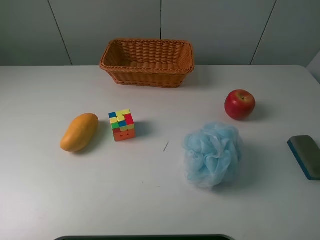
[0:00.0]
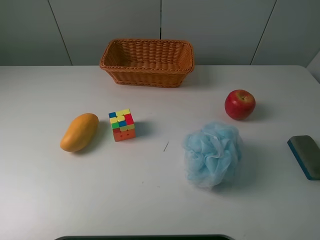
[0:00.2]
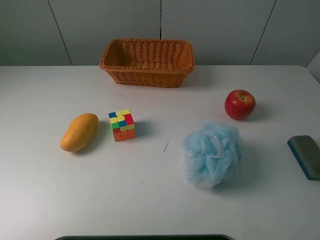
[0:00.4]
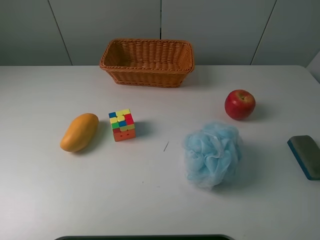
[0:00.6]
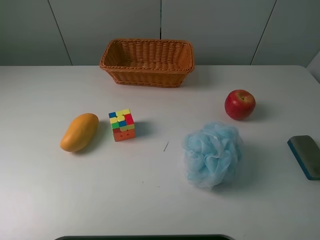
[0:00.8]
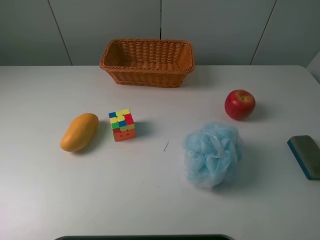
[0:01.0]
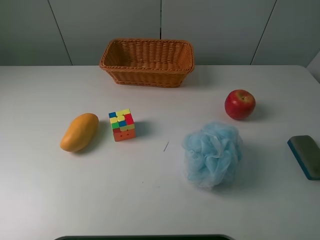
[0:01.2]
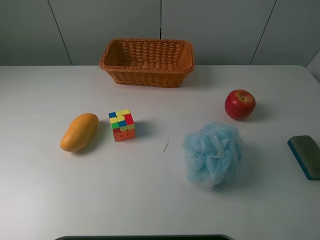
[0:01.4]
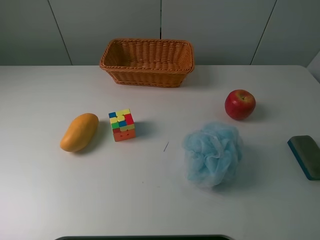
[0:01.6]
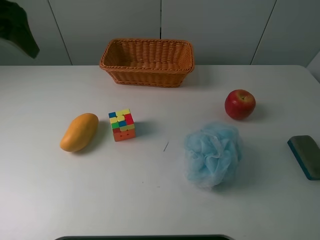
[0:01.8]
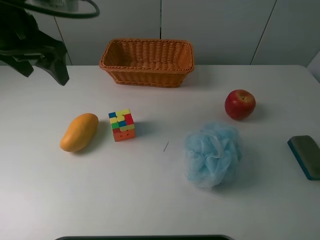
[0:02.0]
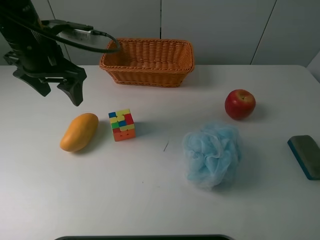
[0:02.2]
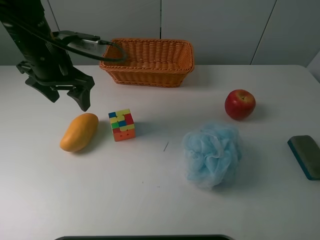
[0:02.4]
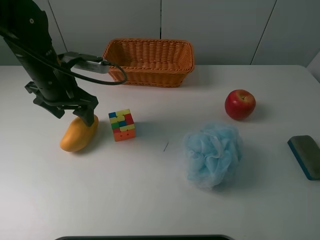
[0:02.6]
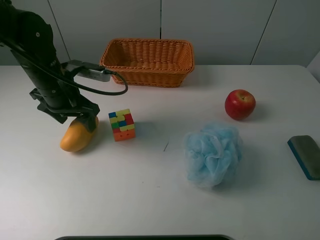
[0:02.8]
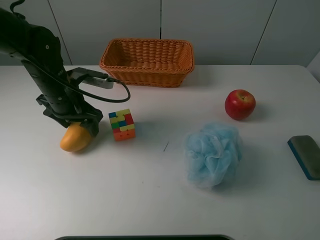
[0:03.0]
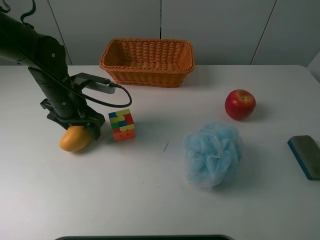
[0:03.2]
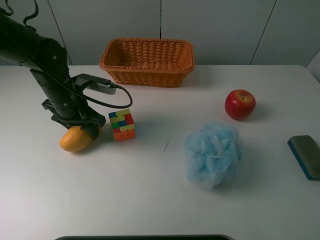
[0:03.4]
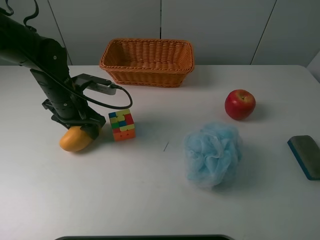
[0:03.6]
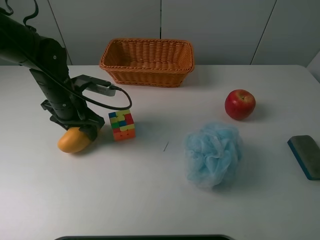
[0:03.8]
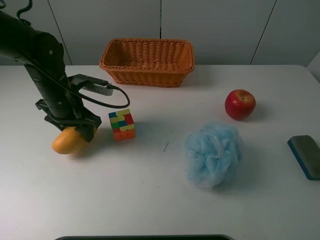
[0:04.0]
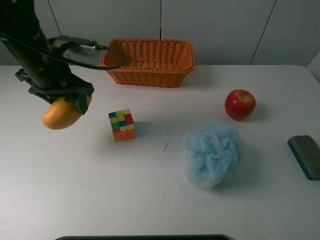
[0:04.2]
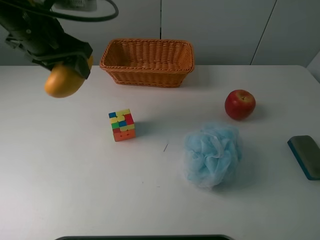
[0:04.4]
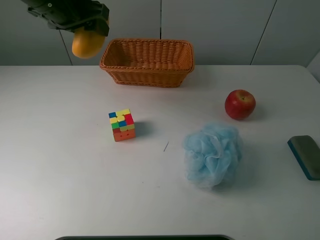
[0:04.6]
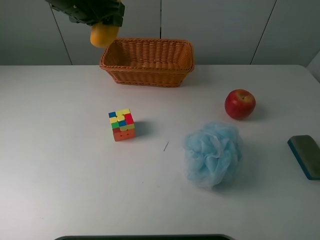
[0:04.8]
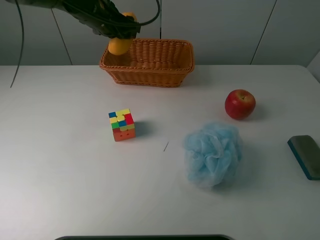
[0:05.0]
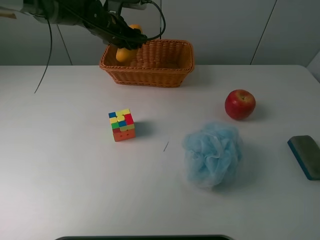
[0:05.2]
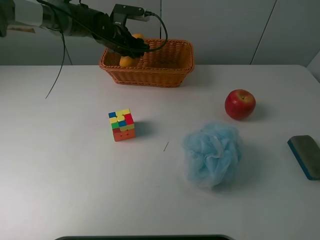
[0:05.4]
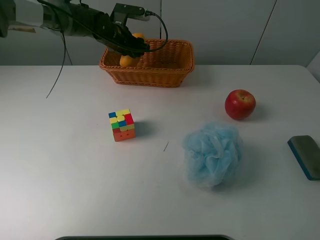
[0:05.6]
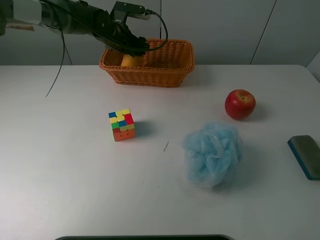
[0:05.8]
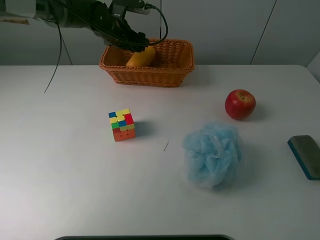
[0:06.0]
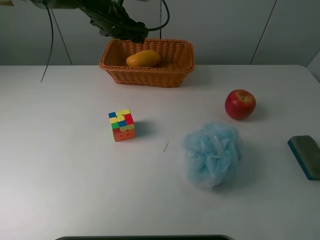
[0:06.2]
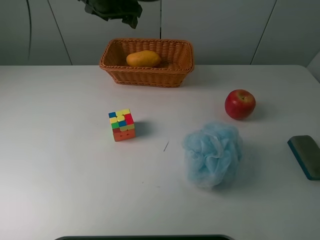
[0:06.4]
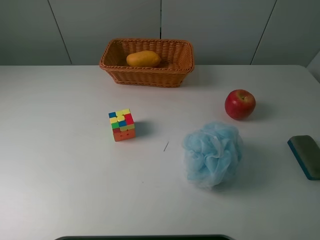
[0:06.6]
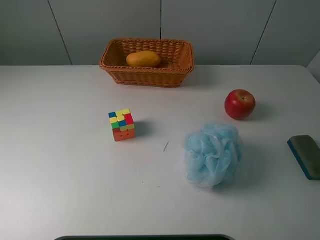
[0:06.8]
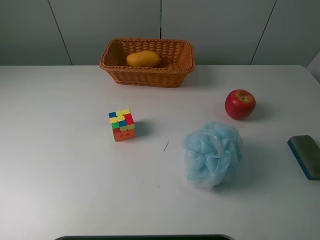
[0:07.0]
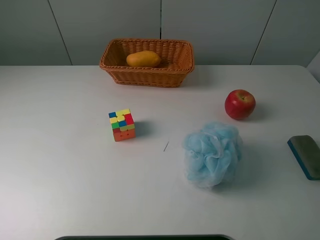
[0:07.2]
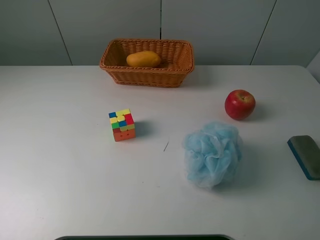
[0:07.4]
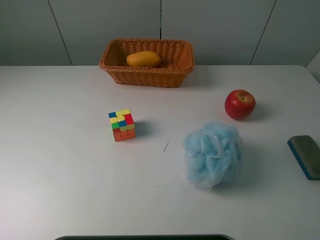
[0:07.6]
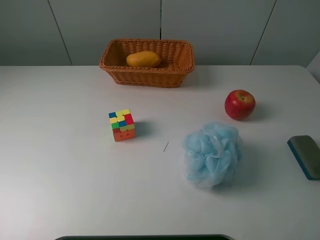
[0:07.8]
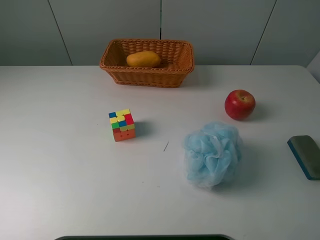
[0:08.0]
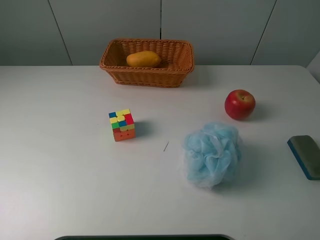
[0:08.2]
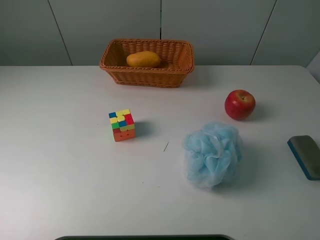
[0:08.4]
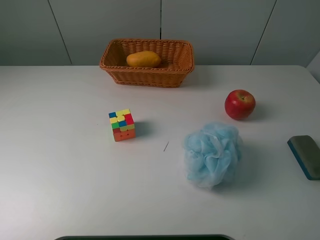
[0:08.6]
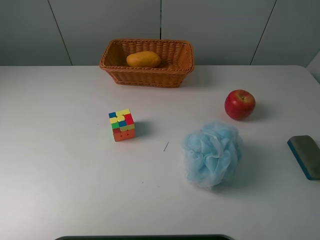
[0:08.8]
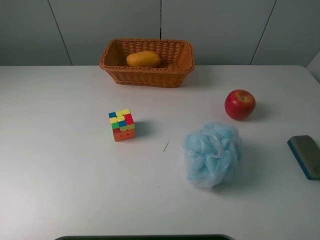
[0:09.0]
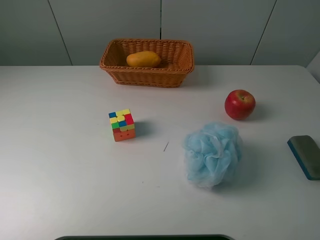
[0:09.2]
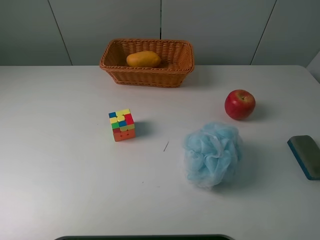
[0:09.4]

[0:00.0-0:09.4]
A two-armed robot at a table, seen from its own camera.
Task of the whole recording: use a picker to grab the item closest to the cube and place it in the basket.
Step, 0:00.0 to 0:03.4: Grasp the mango with the left gripper.
Step, 0:03.6 to 0:06.0: Place the mango into the basket with the left gripper.
0:01.6 to 0:03.2: The left gripper shifts roughly 30 cm downward and to the right.
0:03.2 to 0:04.8: The left gripper shifts approximately 20 cm upward and forward, and closes its fingers.
0:04.8 to 0:06.2: The left gripper moves forward, some 5 cm, and opens.
0:06.2 to 0:07.8: The left gripper moves backward, to the left and upward, about 60 cm.
